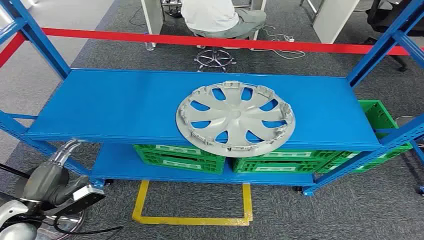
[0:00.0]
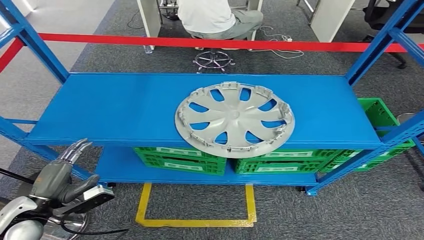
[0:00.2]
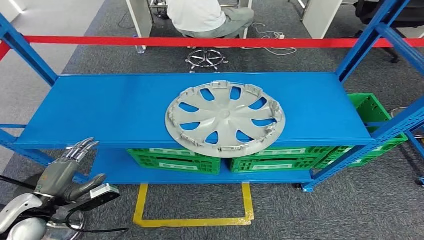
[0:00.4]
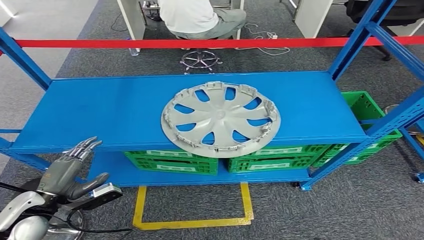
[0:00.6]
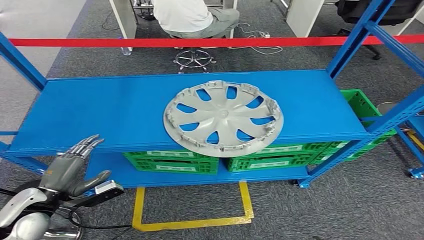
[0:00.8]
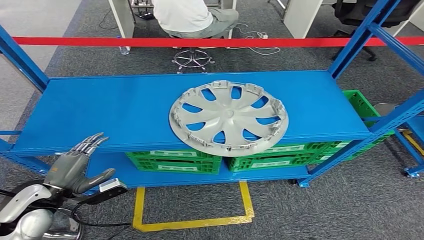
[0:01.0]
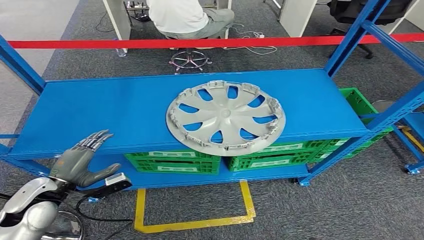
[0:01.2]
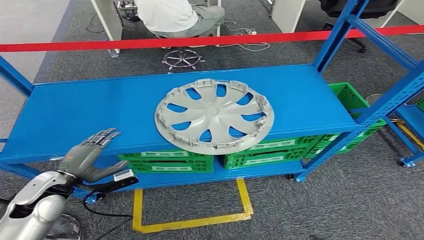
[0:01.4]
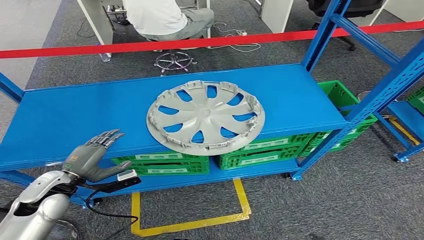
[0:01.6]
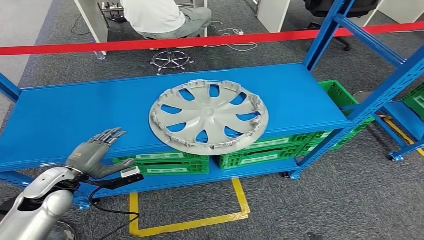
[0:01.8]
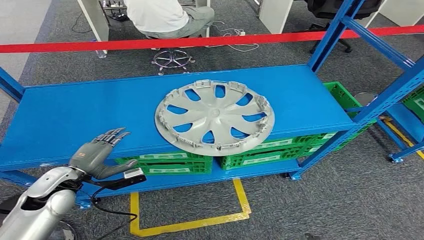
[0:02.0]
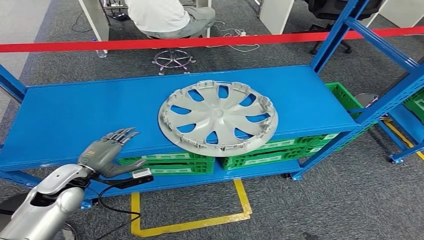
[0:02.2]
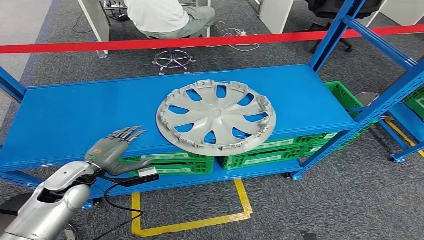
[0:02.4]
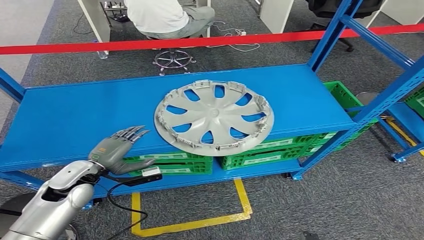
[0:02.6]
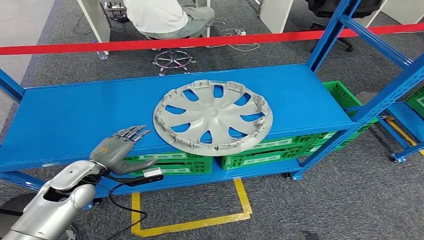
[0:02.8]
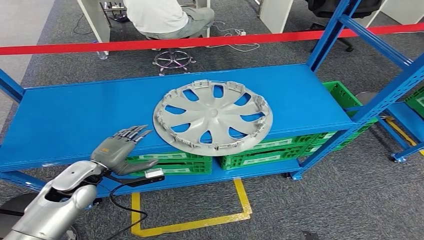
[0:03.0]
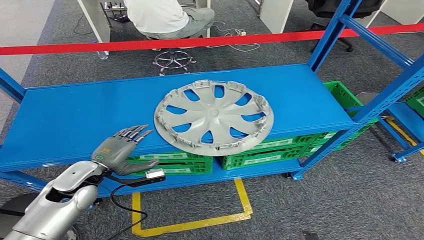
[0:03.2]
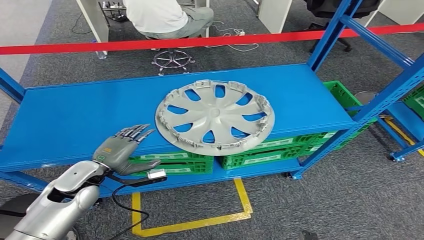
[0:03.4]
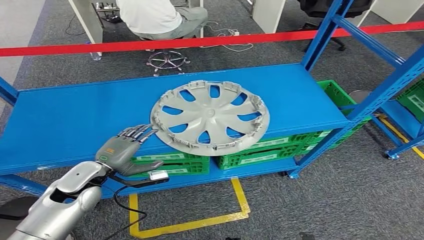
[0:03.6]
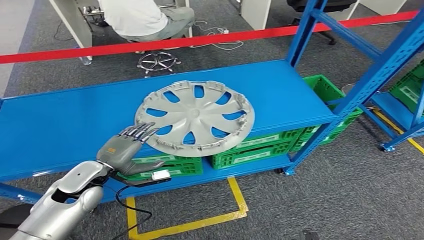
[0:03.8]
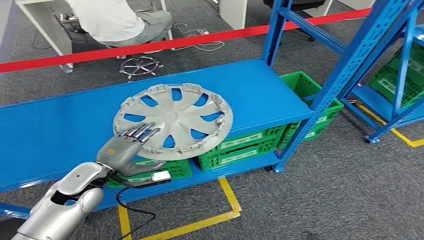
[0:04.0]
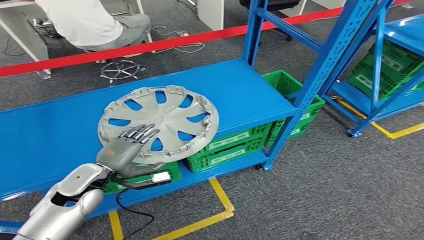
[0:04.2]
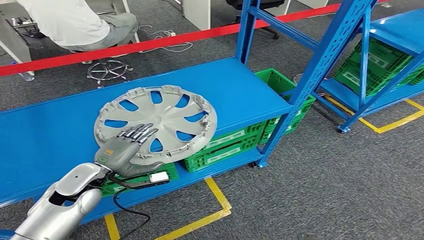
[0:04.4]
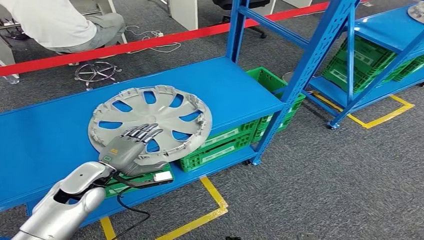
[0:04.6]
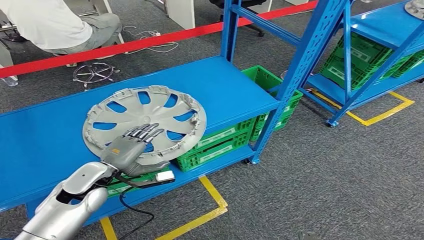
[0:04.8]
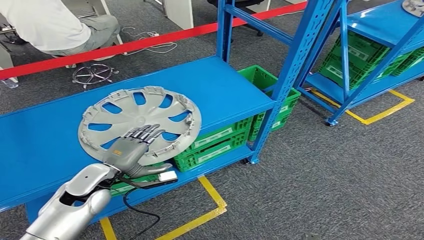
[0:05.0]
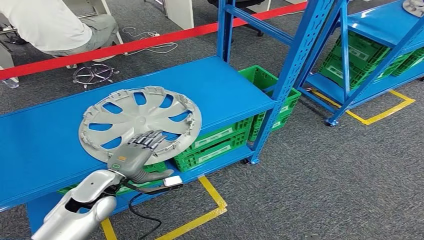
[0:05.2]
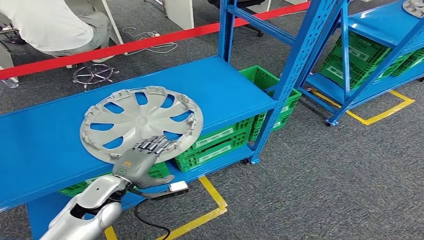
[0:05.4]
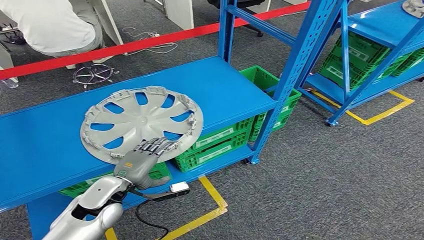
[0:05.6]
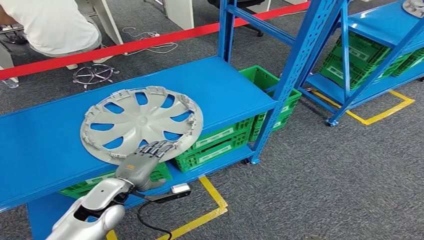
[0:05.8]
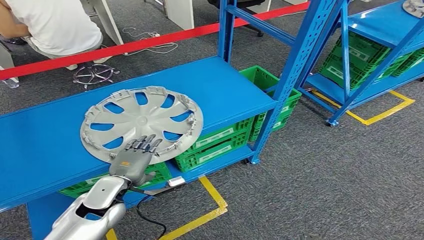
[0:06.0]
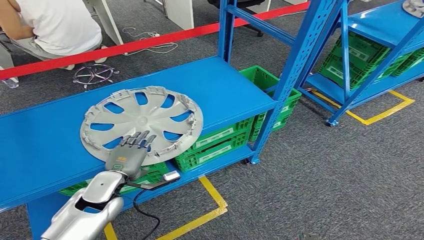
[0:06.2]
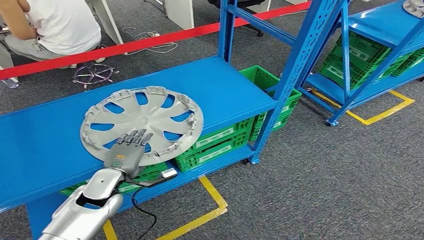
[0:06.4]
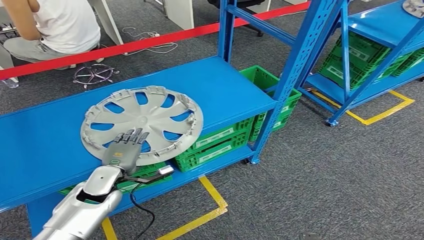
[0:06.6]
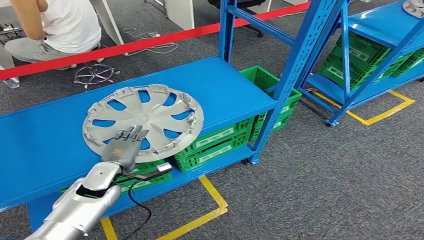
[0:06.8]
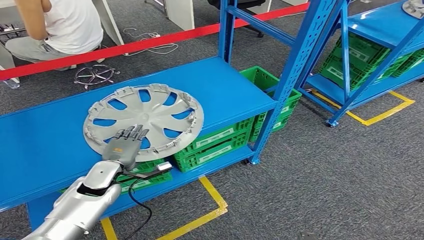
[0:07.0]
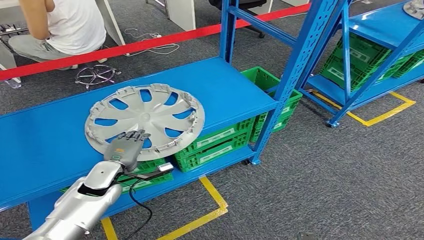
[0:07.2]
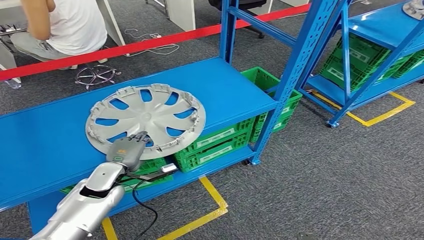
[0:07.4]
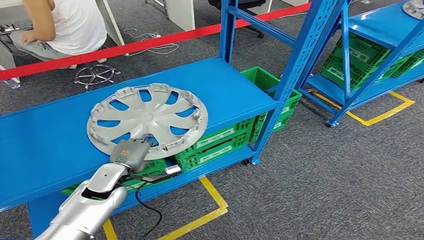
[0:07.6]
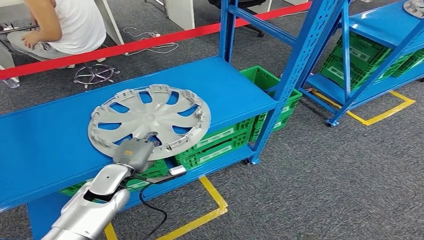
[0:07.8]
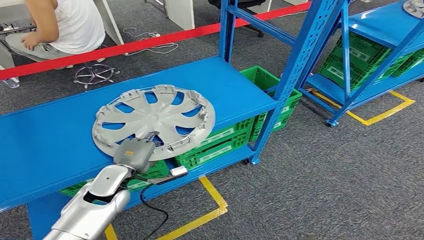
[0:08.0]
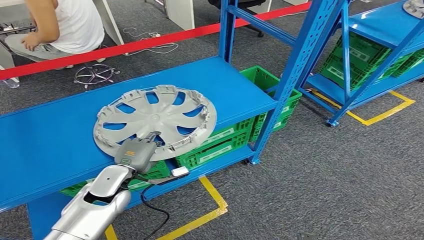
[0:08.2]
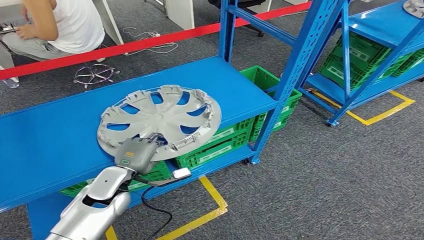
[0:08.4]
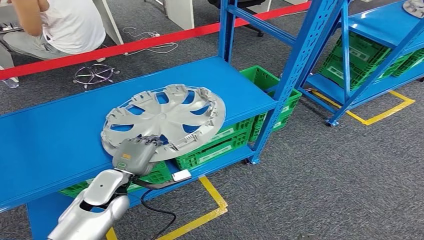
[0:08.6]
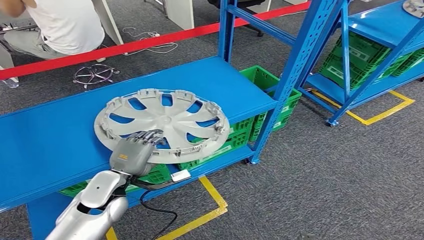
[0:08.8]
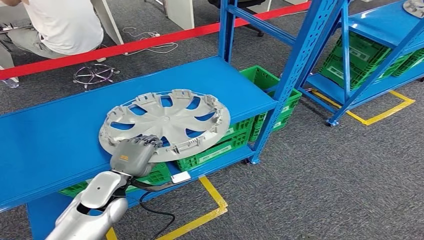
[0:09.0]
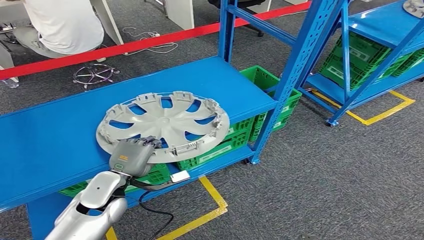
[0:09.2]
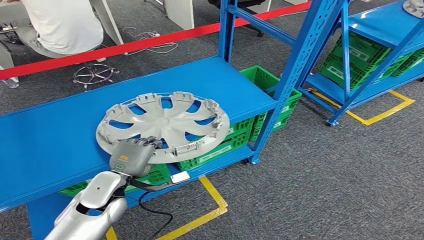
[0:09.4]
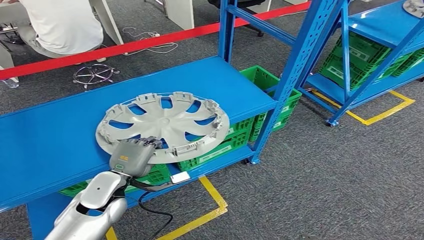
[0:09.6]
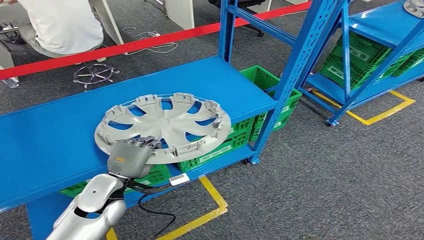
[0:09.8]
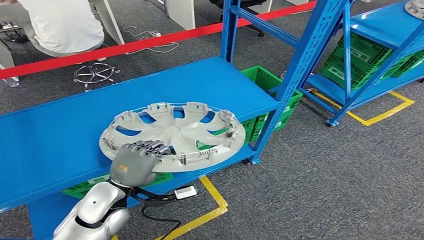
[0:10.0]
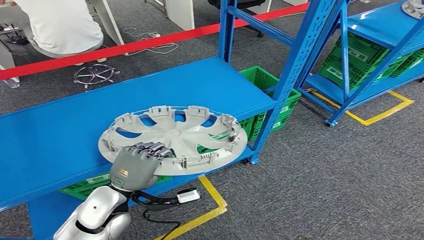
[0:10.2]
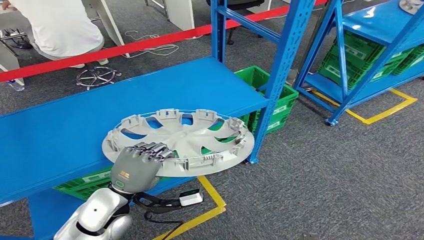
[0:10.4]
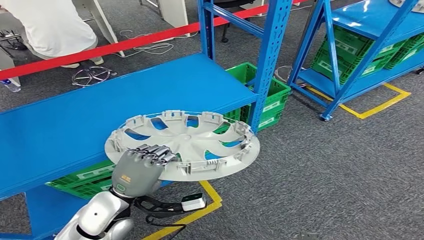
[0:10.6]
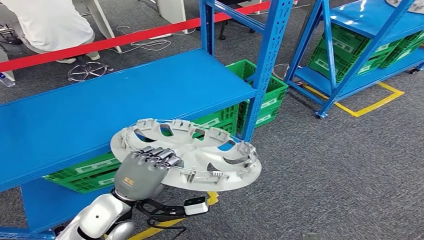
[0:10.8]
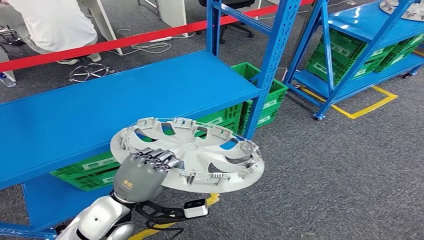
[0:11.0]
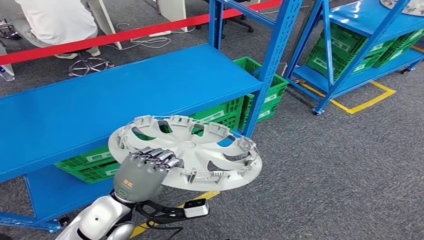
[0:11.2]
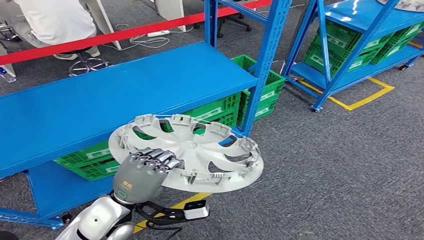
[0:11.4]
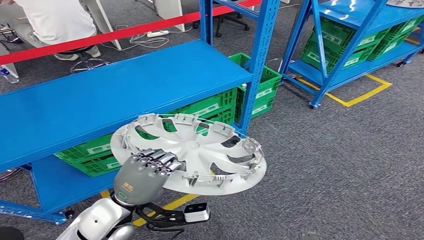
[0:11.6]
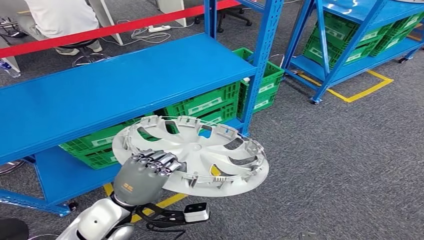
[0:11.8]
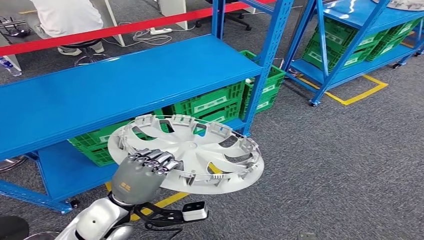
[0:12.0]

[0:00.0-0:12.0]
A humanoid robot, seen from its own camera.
0:01.6 to 0:03.0: The left hand changes place by roughly 5 cm.
0:06.0 to 0:07.6: The left hand shifts by approximately 5 cm.
0:07.6 to 0:09.0: The left hand changes place by roughly 5 cm.

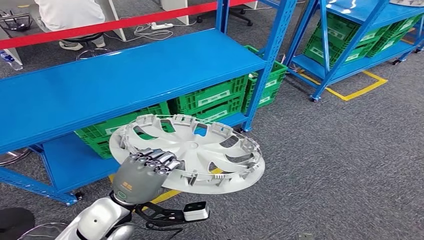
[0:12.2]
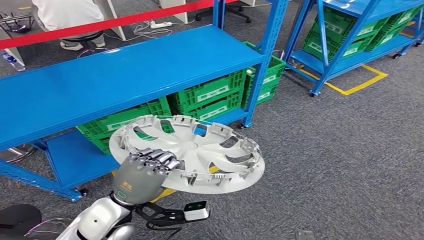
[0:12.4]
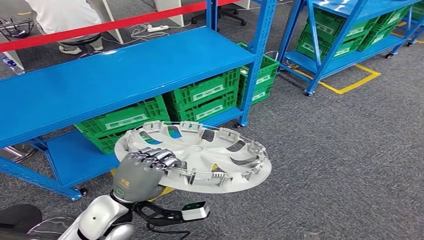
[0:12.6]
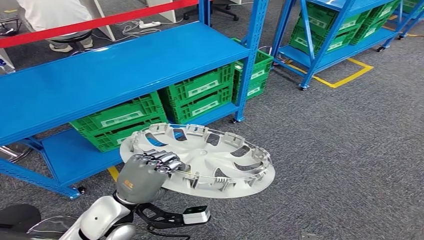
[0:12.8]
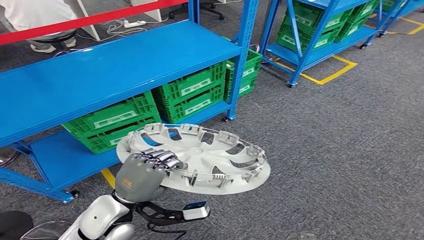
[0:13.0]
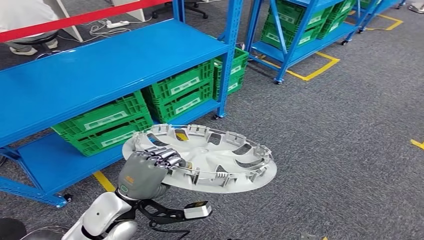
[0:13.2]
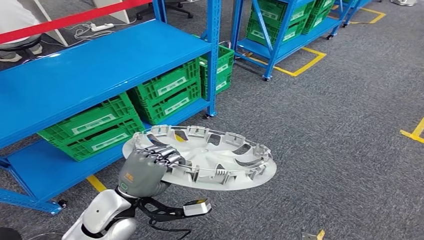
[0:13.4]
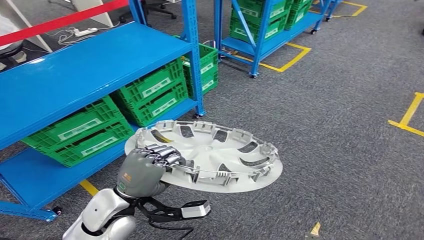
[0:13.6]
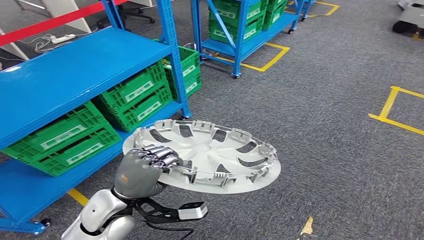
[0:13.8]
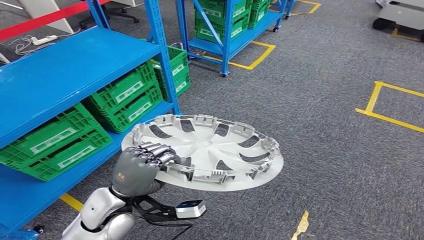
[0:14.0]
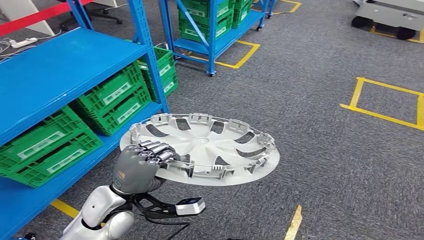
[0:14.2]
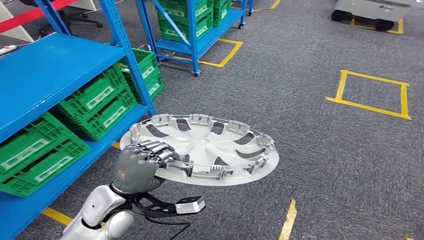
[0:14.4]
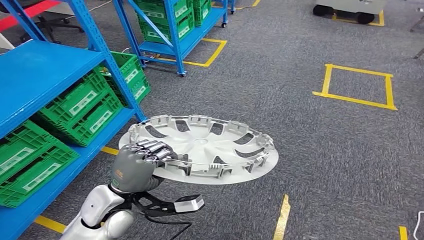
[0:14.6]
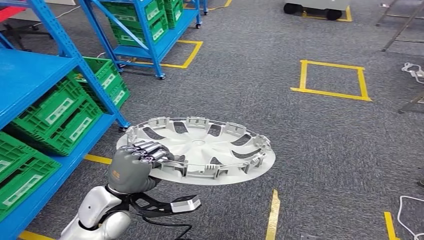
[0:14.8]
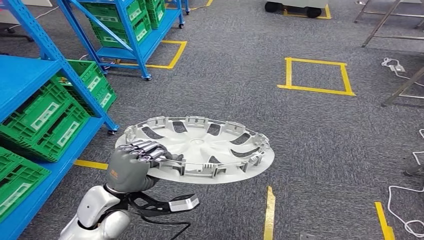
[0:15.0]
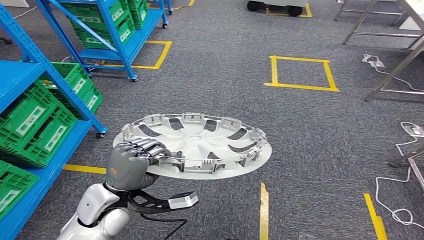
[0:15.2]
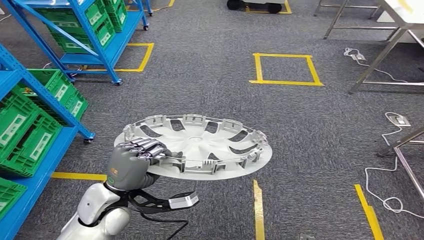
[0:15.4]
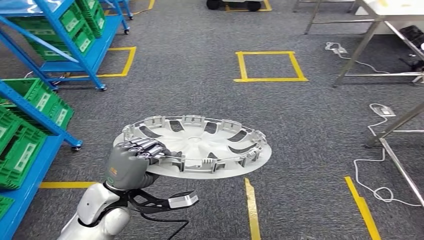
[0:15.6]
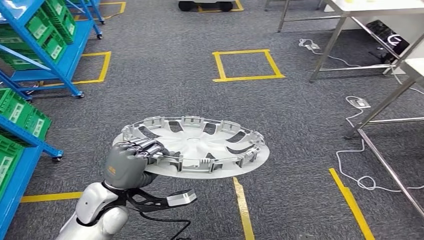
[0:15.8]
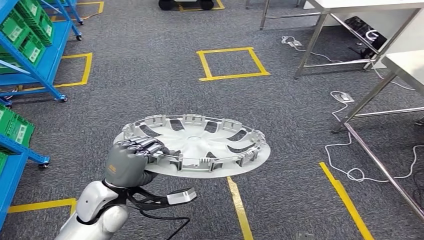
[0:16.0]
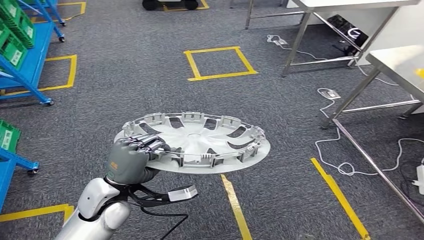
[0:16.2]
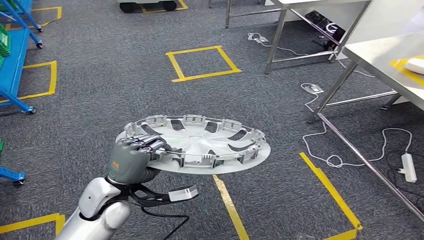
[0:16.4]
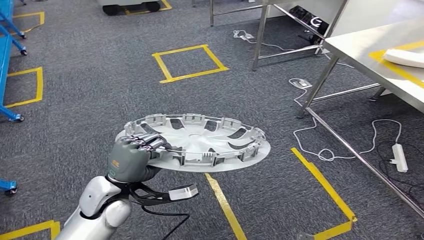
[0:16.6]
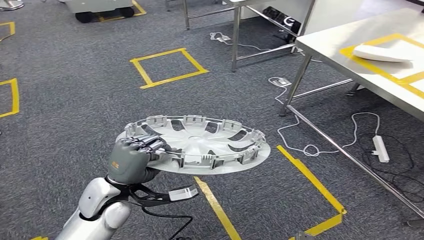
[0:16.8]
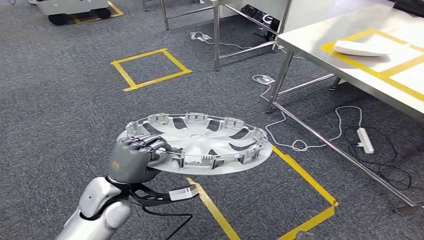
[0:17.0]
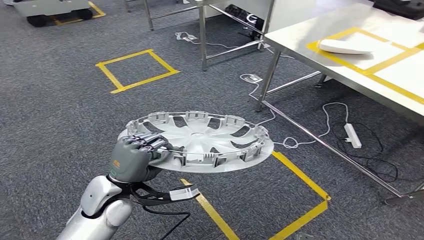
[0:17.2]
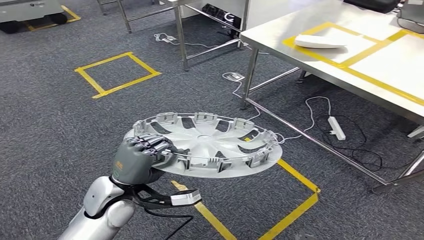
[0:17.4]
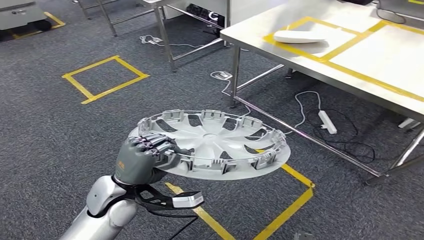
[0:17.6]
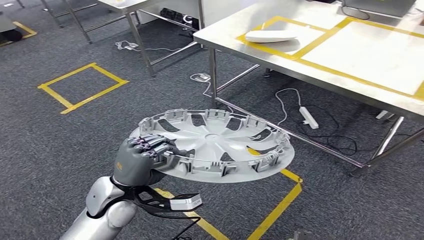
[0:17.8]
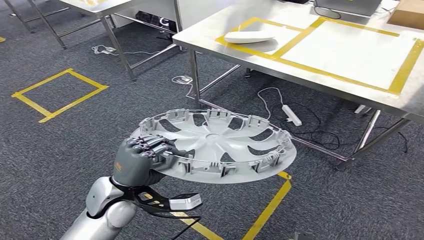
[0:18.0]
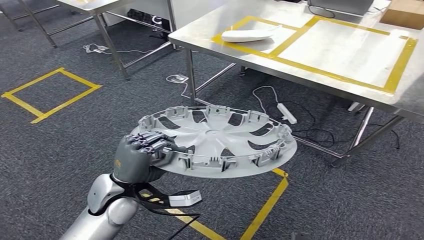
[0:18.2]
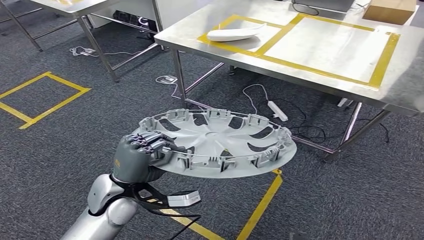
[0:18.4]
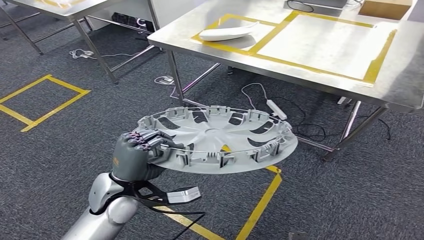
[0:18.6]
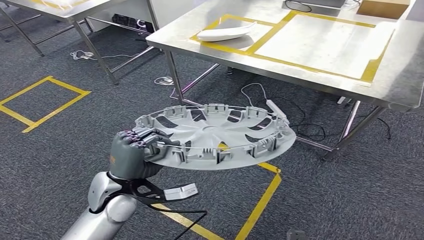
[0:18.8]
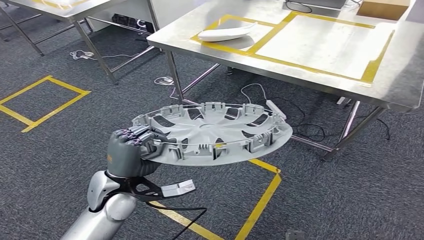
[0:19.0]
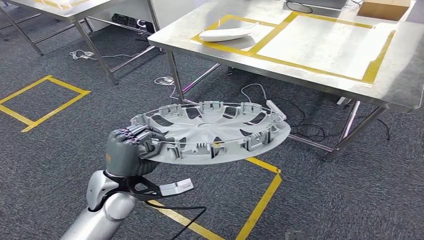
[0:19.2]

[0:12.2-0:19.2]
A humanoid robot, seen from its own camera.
Step, 0:12.2 to 0:14.8: Pick up the small component from the shelf.
